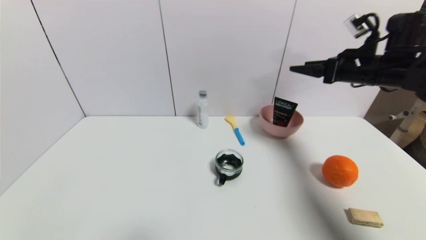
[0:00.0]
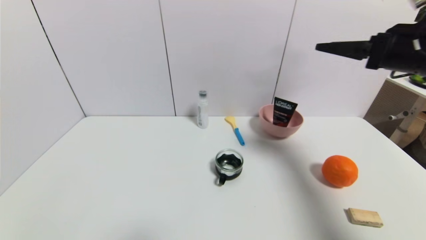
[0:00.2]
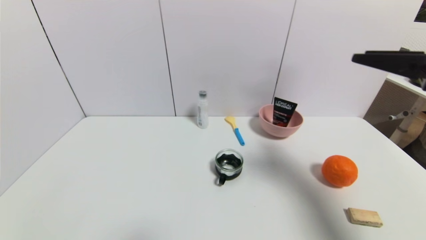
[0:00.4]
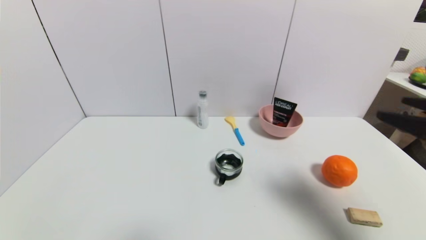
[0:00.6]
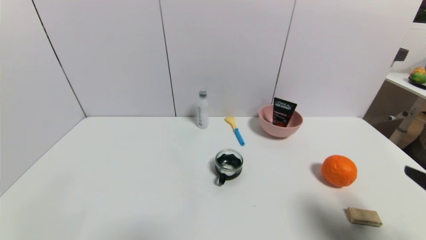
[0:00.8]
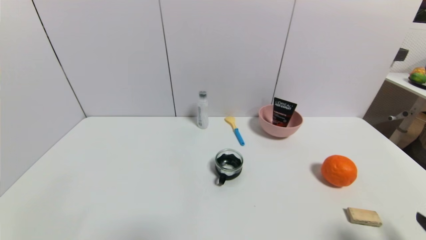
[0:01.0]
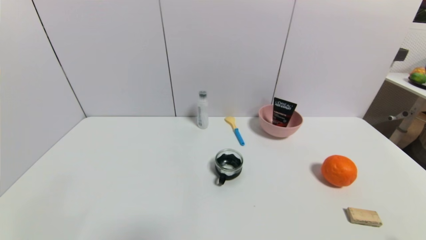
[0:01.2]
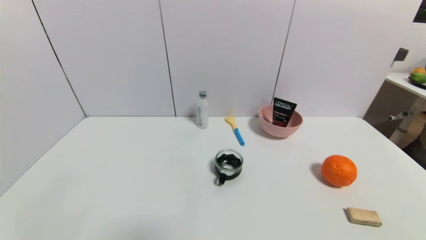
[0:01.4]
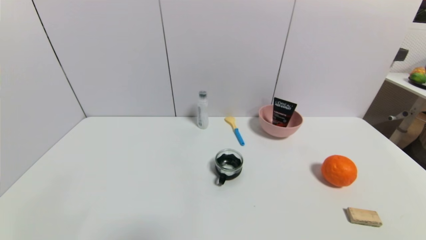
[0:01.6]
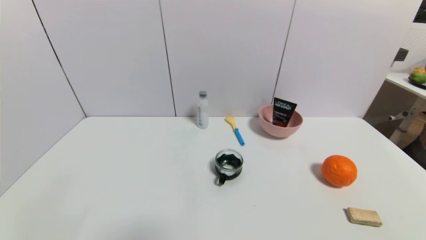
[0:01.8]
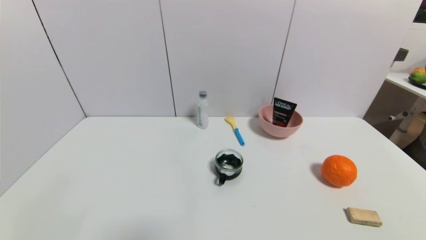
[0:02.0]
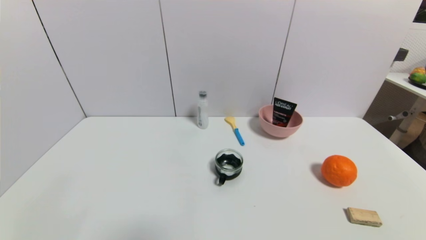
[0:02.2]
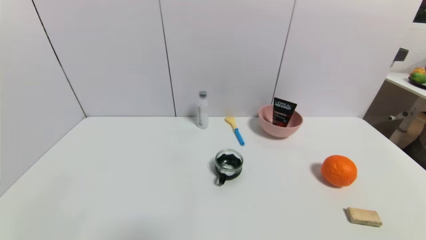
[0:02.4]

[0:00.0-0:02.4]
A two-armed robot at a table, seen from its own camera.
Task of the whole recording: use a gripper to pick the target object and place on the pink bowl.
0:00.0 to 0:01.2: The right gripper goes about 40 cm backward and downward.
